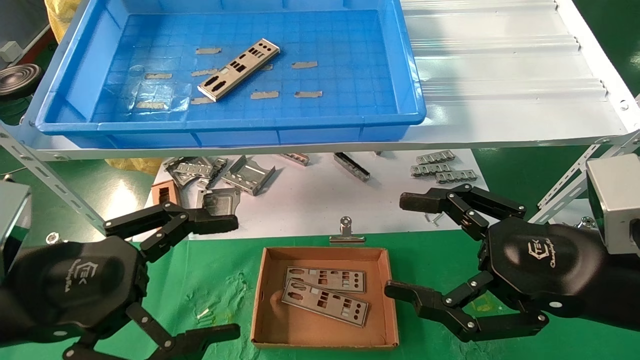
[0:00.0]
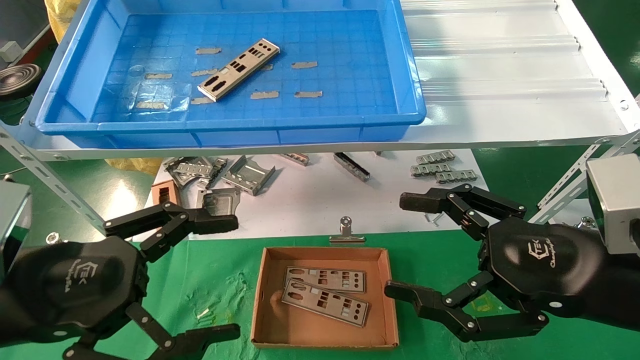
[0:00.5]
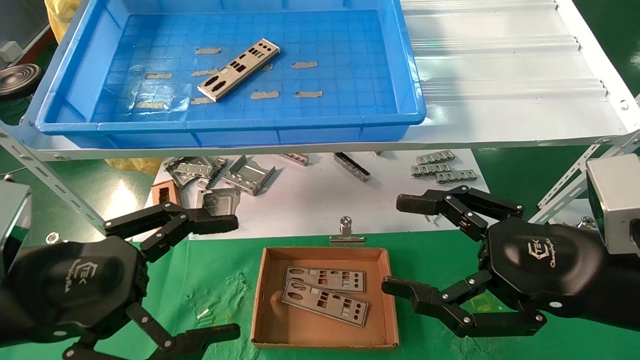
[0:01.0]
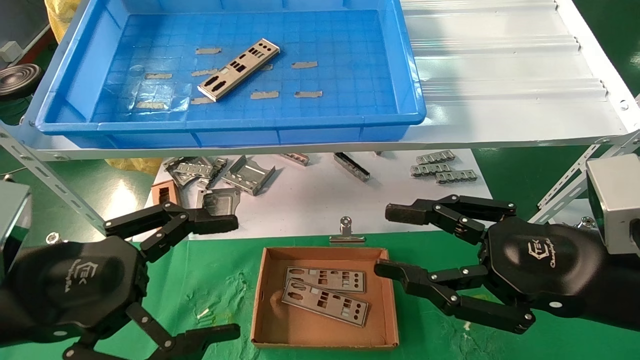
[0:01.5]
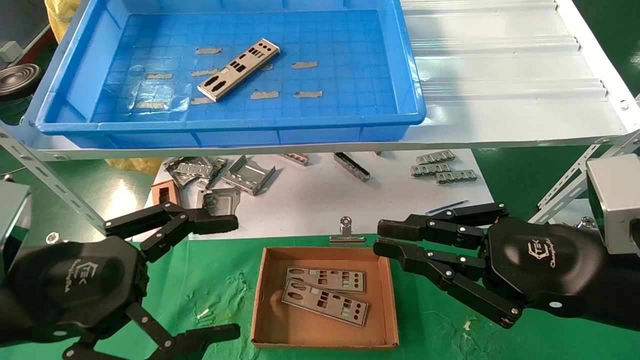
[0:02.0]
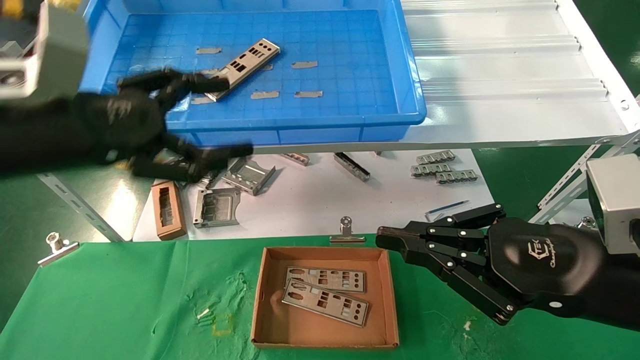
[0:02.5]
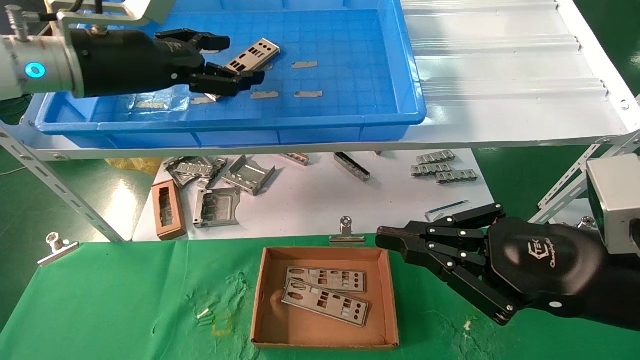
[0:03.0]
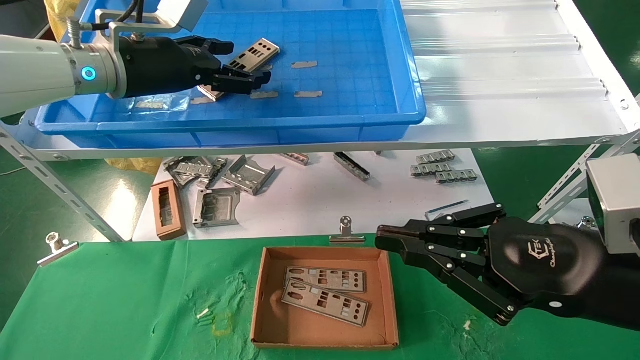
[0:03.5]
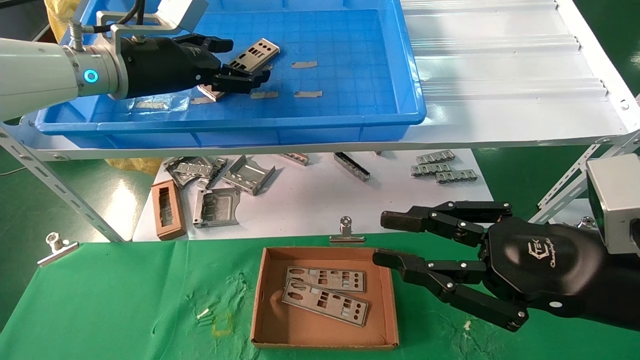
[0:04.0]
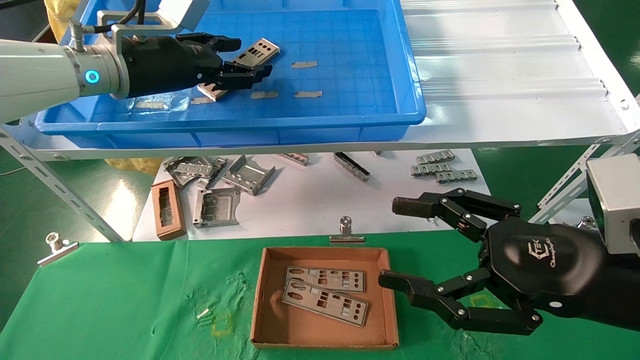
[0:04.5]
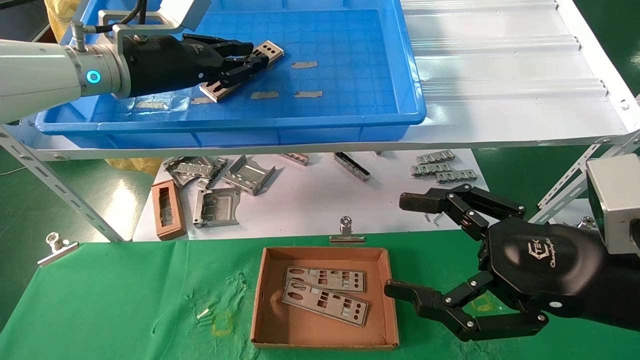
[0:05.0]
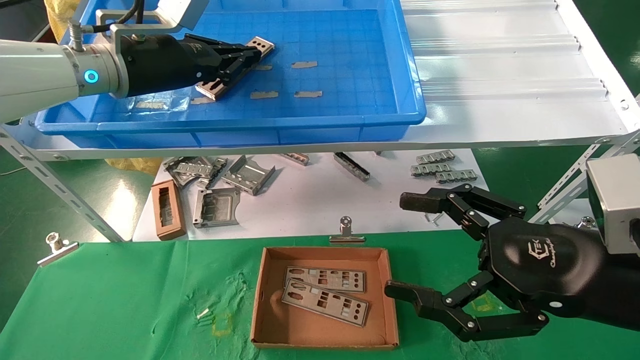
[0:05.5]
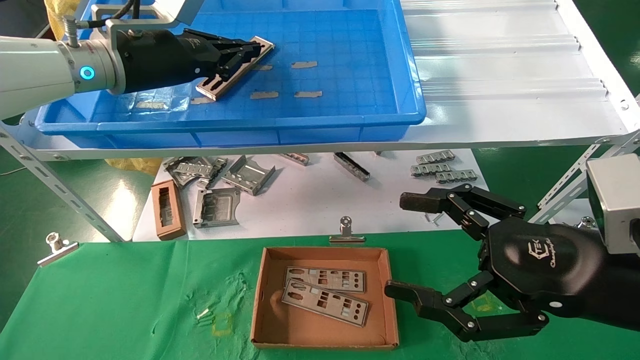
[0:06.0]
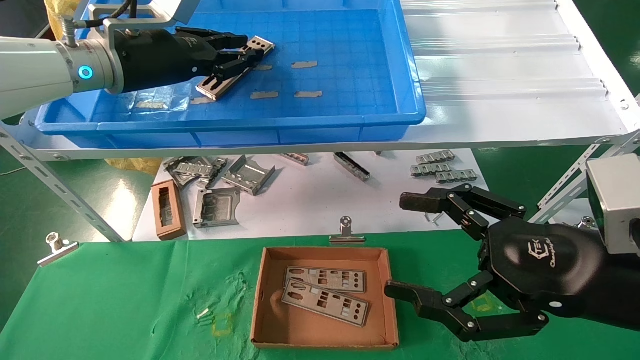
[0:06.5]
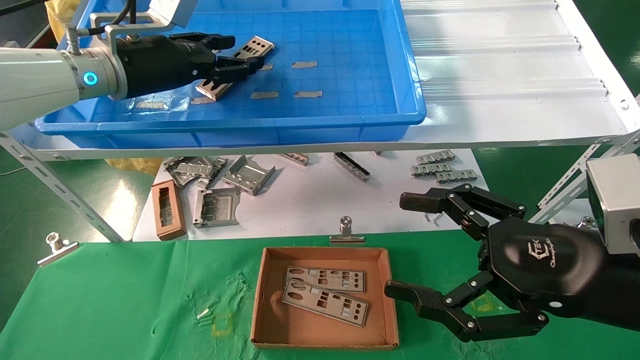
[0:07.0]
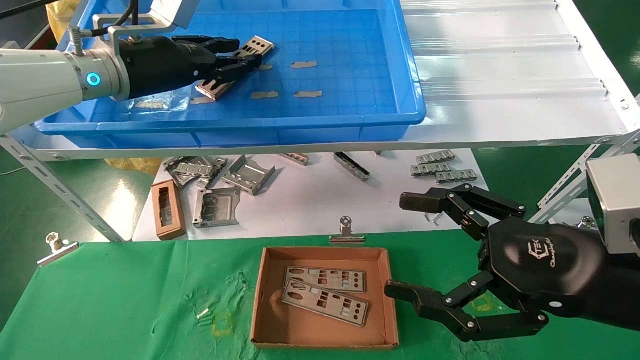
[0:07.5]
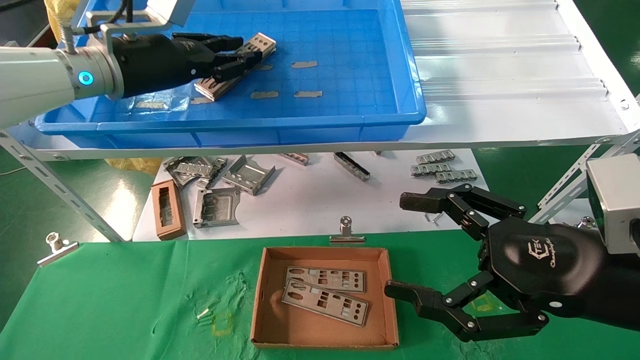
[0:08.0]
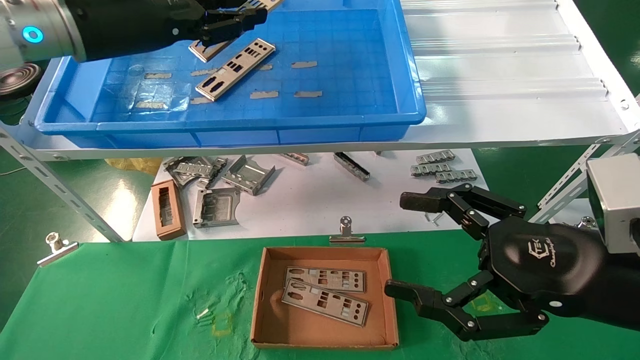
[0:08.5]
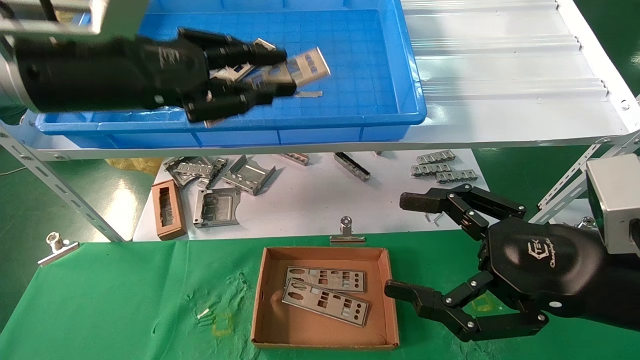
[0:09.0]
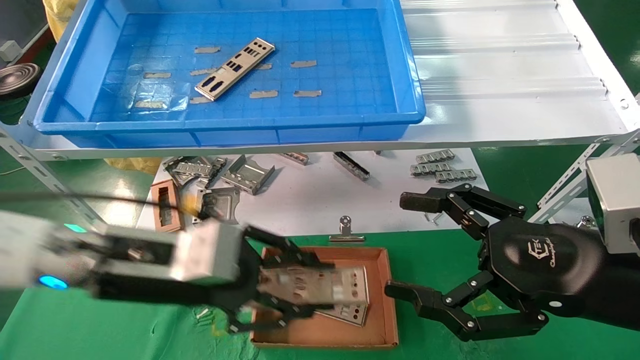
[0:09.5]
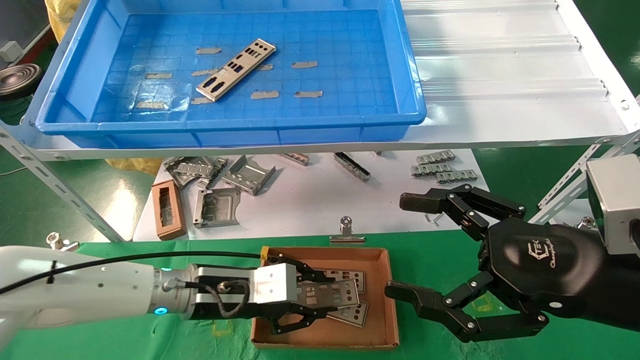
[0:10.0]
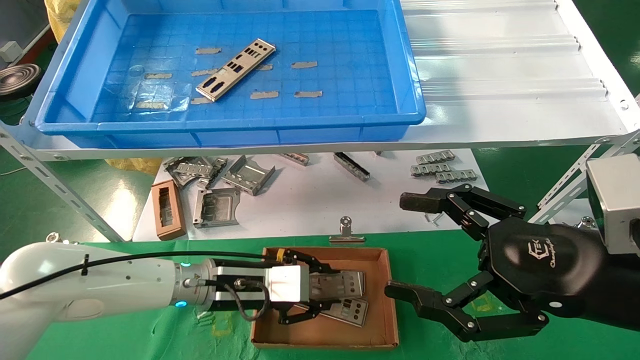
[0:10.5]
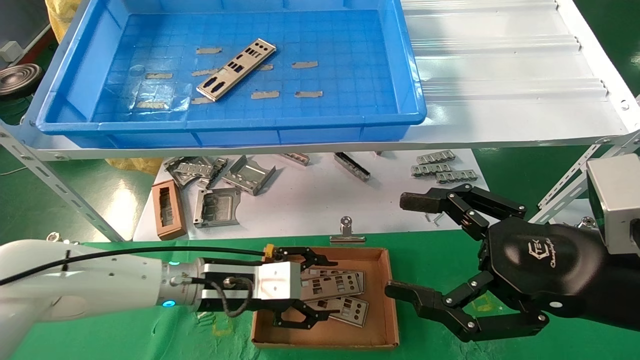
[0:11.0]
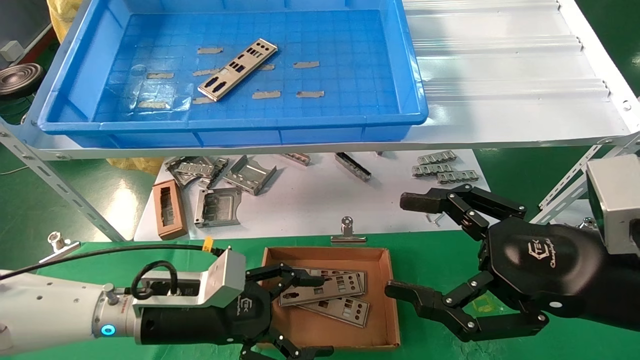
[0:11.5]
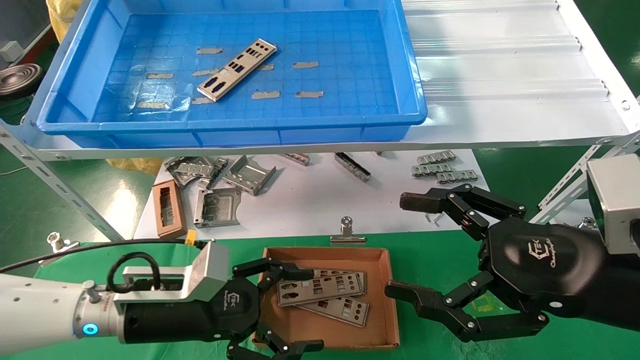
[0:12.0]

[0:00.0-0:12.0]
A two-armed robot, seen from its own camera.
Task of the whole recording: pick up the parts on the tray and put them in the cardboard box.
Step, 0:02.5 to 0:07.5: Pick up the IO bracket from the container box.
Step, 0:08.0 to 0:10.5: Place the IO bracket into the ingredient slot.
0:00.0 to 0:02.0: The right gripper closes up.
0:02.0 to 0:04.0: The left gripper moves forward and upward, roughly 30 cm.
0:04.0 to 0:06.0: The right gripper opens its fingers, while the left gripper closes its fingers.
0:06.0 to 0:08.0: The grippers move only a little.
0:08.0 to 0:10.0: The left gripper goes roughly 30 cm downward.
0:10.0 to 0:12.0: The left gripper heads backward, covering roughly 5 cm, and opens its fingers.

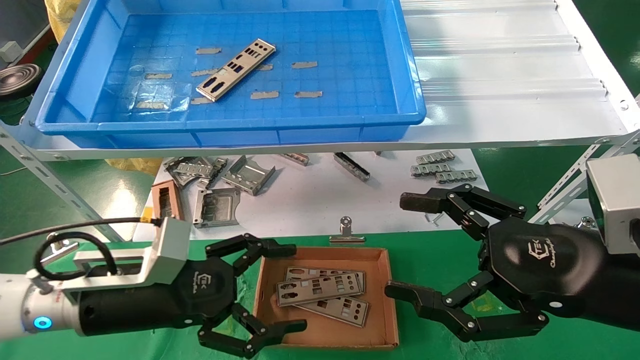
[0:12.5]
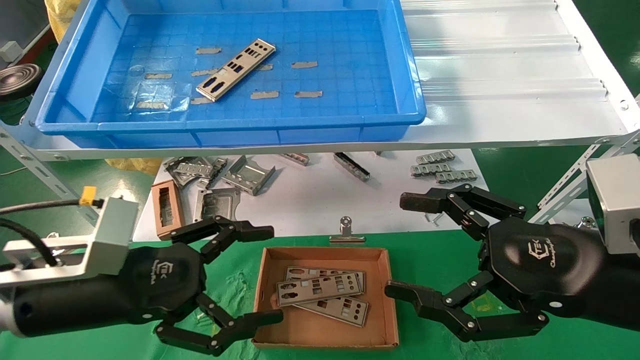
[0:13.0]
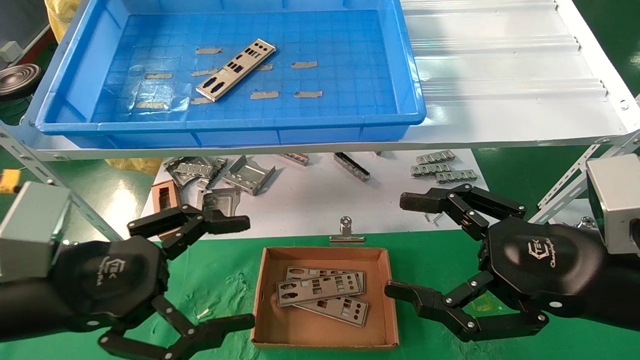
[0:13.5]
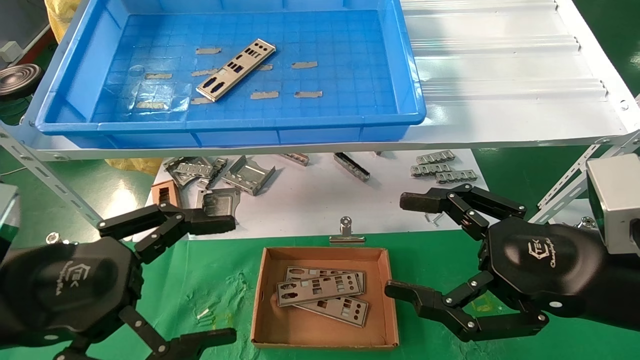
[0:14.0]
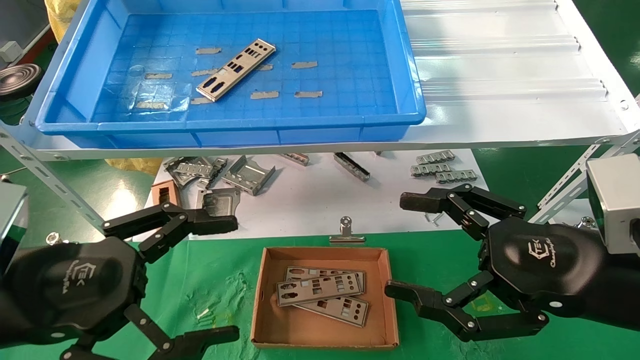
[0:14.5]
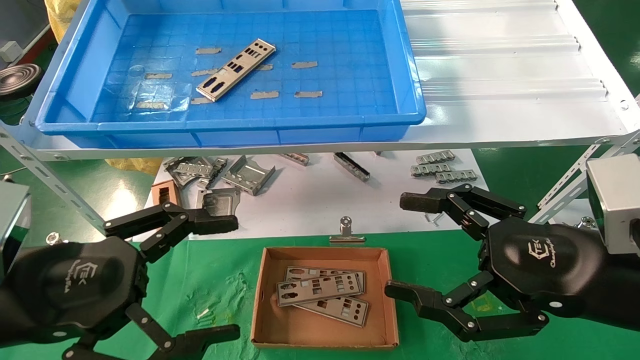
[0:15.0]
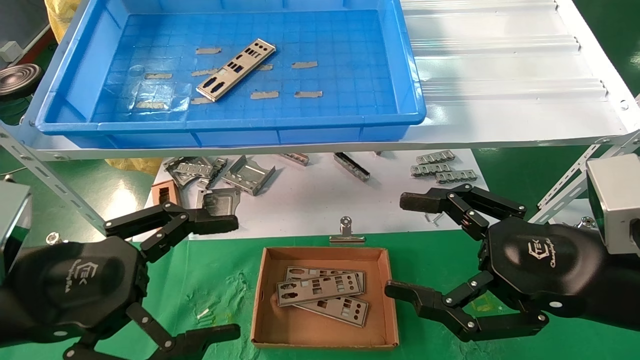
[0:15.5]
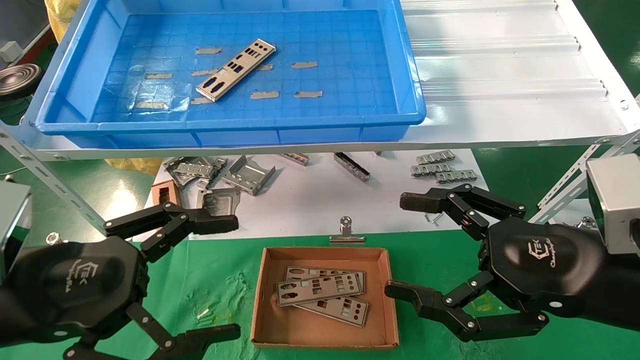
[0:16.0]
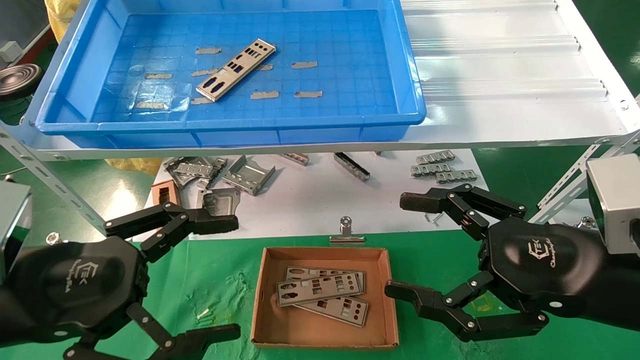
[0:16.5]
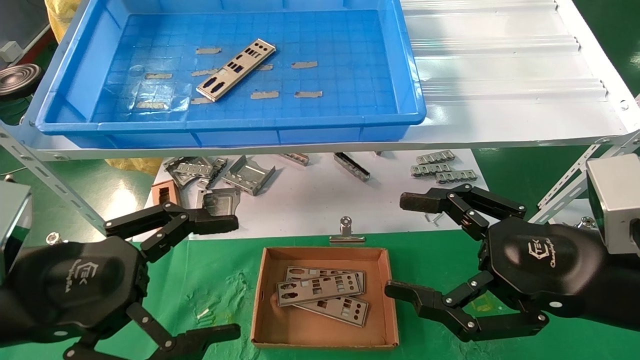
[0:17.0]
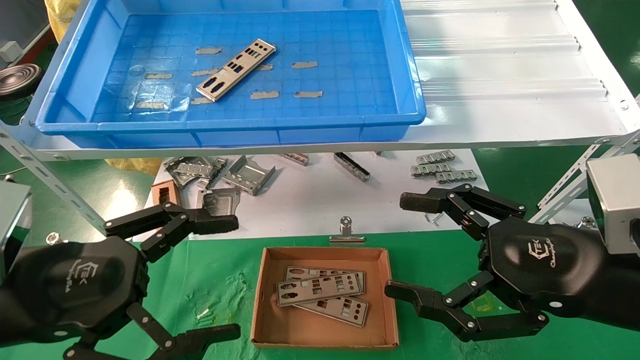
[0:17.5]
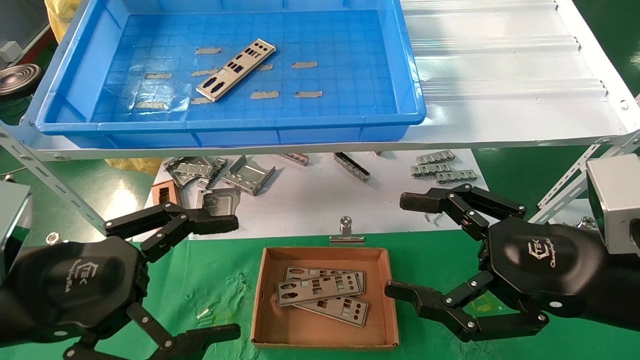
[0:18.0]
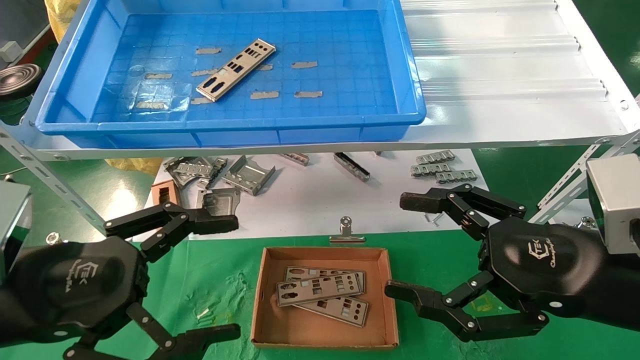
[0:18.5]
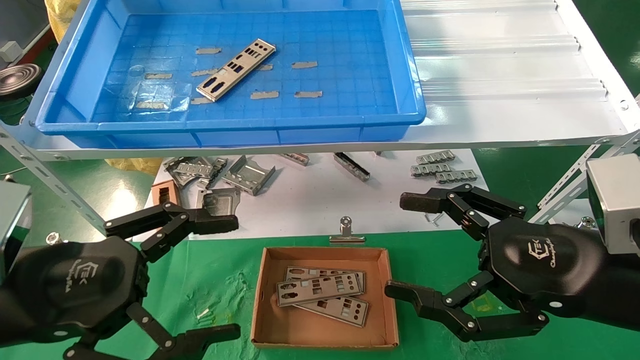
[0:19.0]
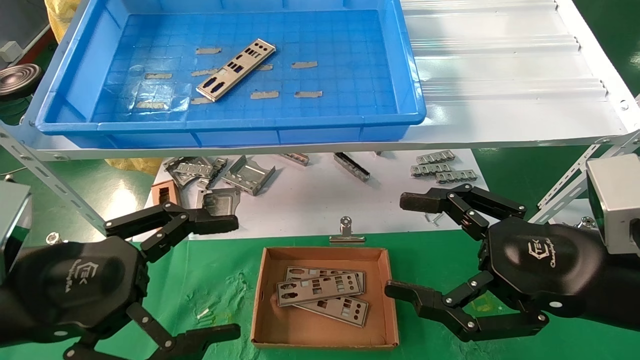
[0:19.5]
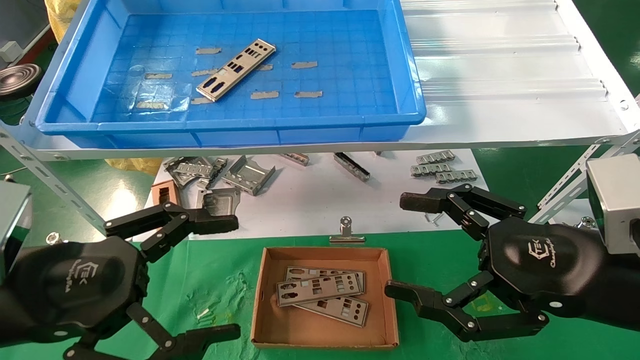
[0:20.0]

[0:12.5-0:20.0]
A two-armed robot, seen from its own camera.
Task of the whole recording: pick up the parts on the tray and put them in the cardboard box.
0:12.5 to 0:14.5: The left gripper is displaced backward and upward by some 10 cm.
0:14.5 to 0:20.0: Neither gripper changes place.
